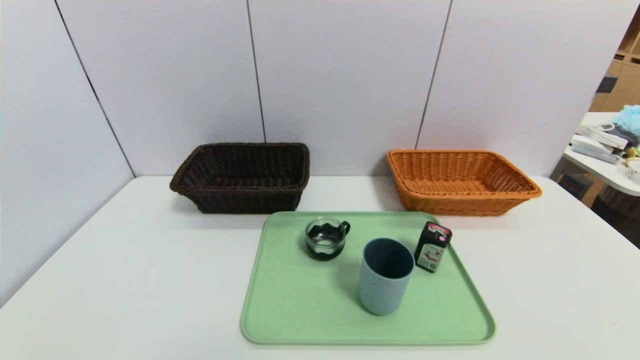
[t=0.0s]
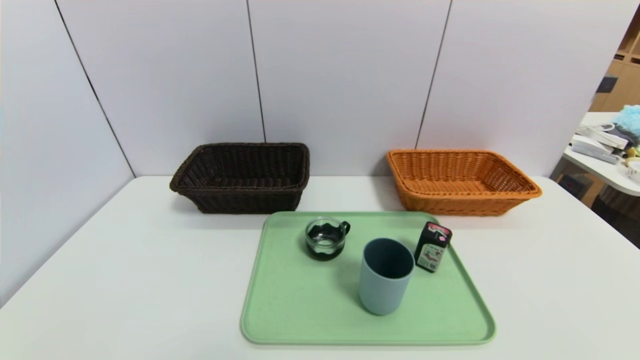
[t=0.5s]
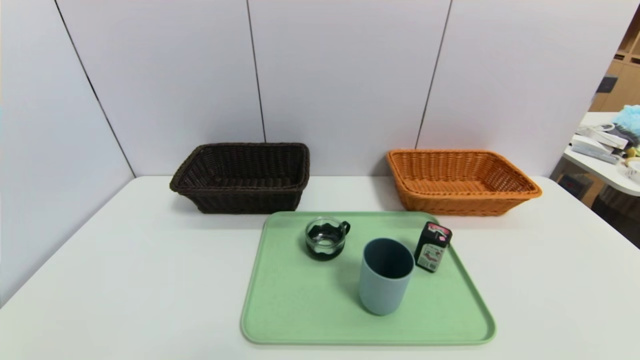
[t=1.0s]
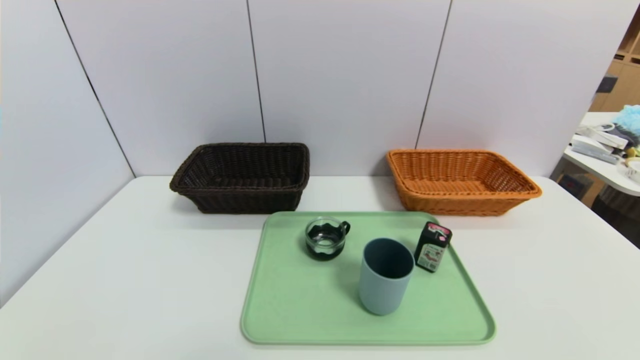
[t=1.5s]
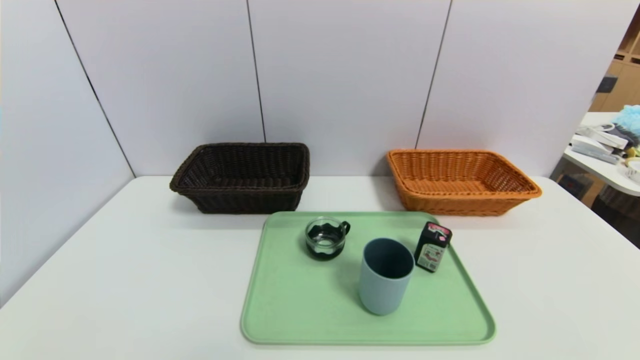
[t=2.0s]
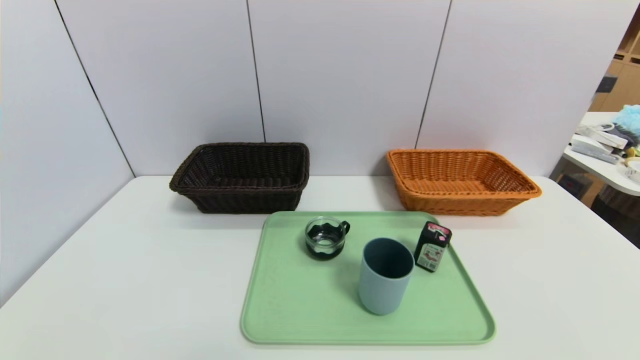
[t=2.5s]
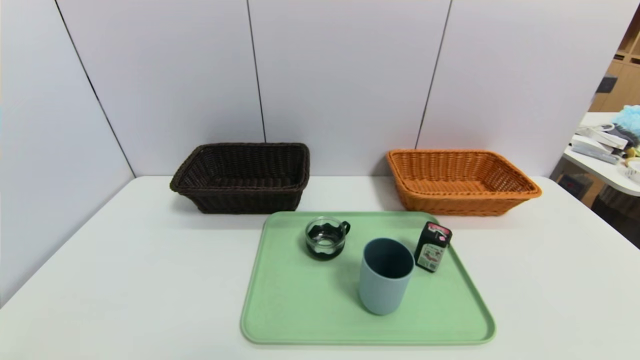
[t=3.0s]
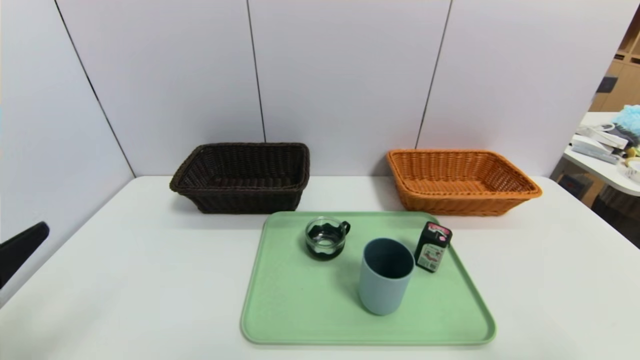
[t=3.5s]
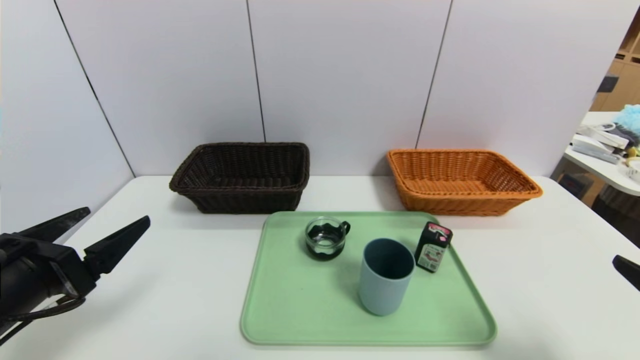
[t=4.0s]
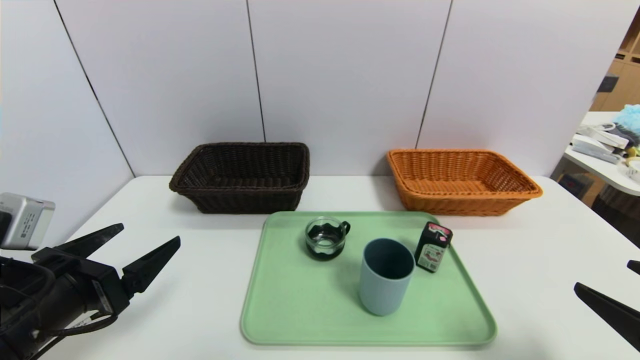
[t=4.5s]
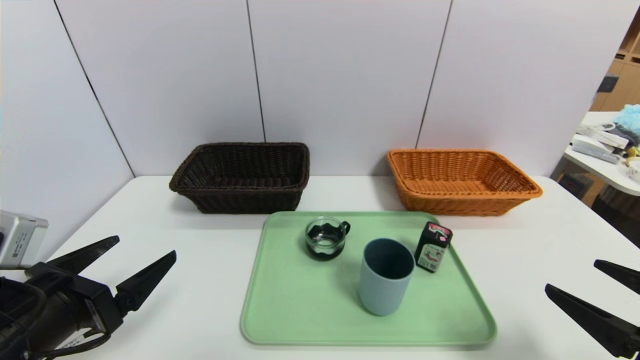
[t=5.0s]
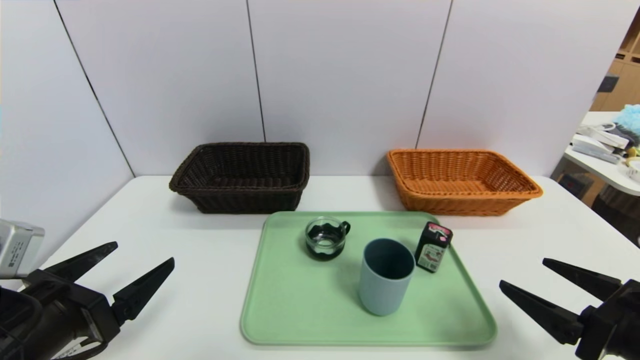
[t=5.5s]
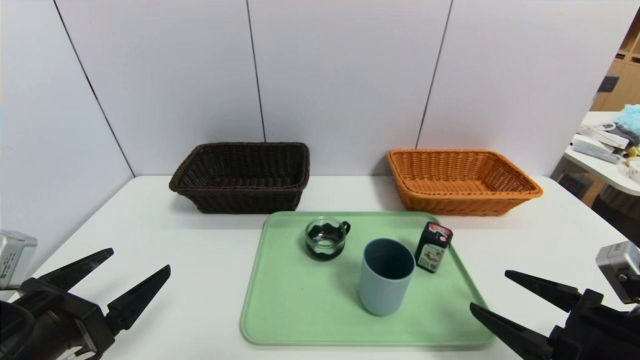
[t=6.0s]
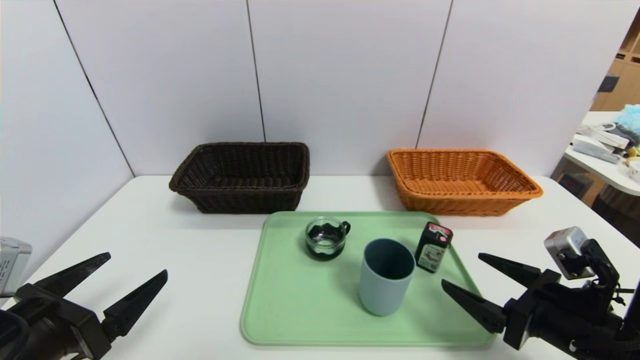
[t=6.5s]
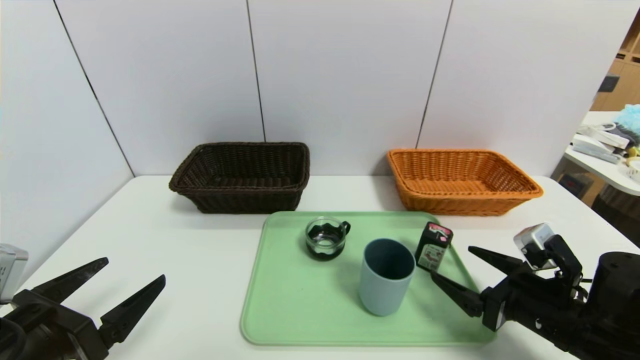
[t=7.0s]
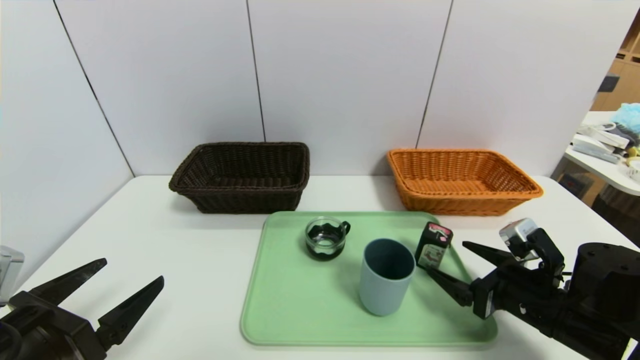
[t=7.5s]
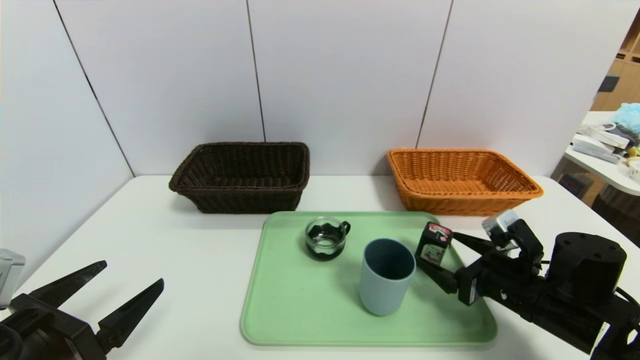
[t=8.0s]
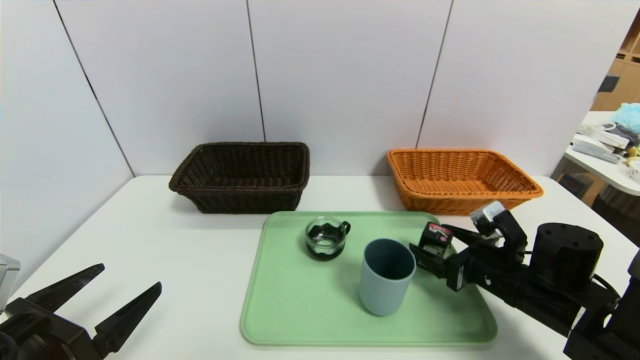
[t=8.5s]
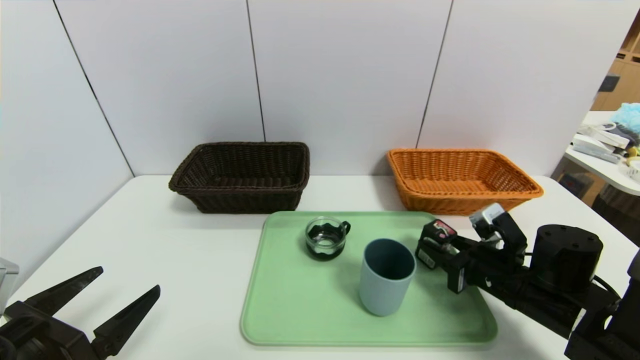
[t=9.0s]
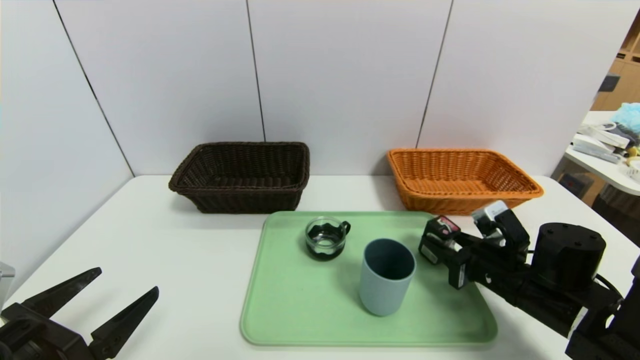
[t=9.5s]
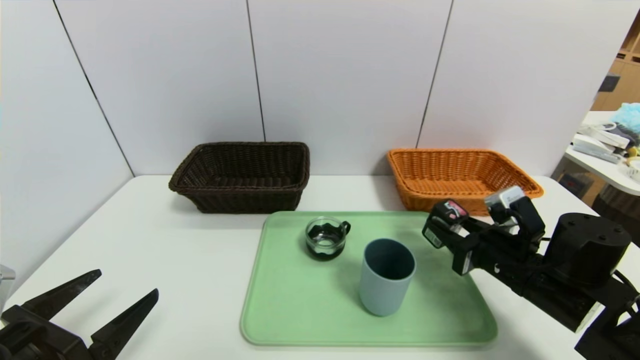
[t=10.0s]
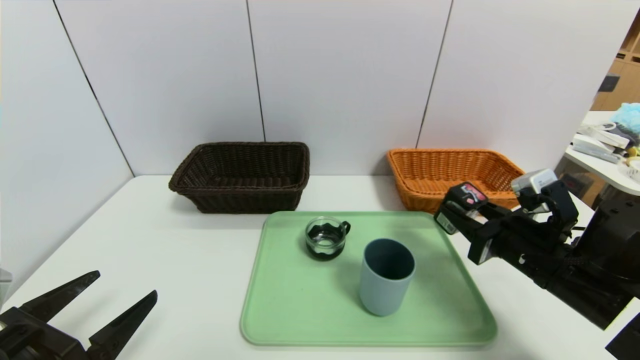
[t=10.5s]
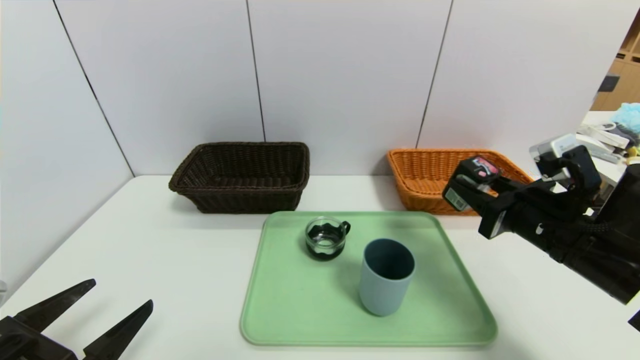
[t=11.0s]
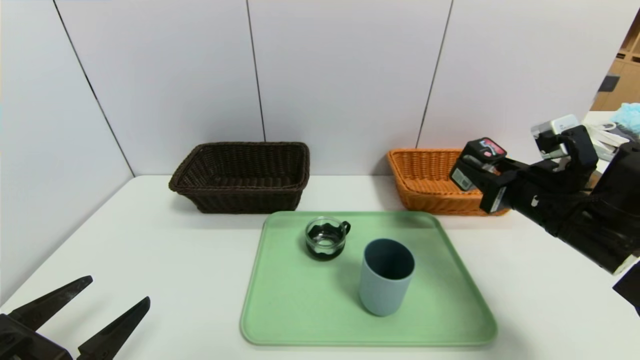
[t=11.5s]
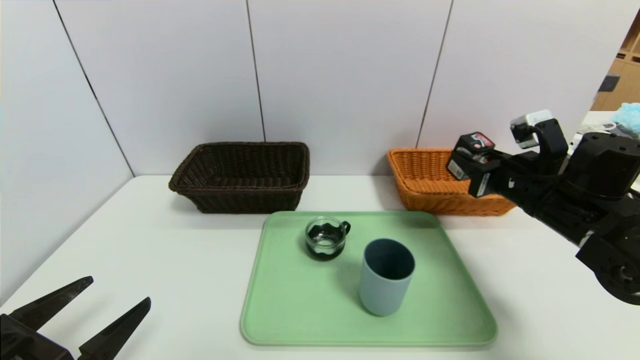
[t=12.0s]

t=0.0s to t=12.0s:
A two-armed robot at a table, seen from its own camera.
Task of the whole recording: place the food in the right basket with the right gripper, and place the non food items in the left basket with the left gripper.
t=0.0s to t=2.0s: Both grippers stay put.
t=2.0s to t=4.0s: The right gripper goes some 15 cm upward and forward; the left gripper goes some 20 cm forward and upward.
t=4.0s to t=6.0s: The right gripper is displaced downward and forward by roughly 10 cm.
t=6.0s to t=8.0s: The right gripper moves forward, approximately 10 cm.
t=8.0s to t=10.0s: The right gripper closes its fingers.
t=10.0s to t=12.0s: The right gripper travels upward and forward by approximately 10 cm.

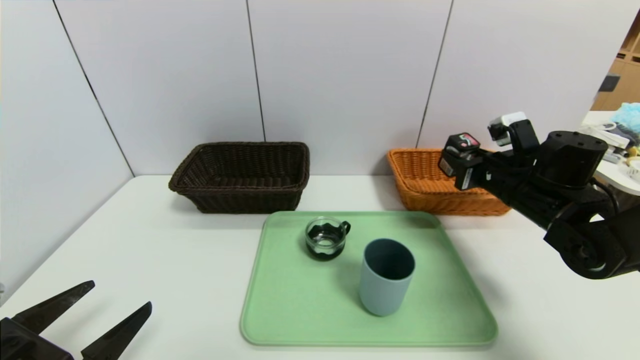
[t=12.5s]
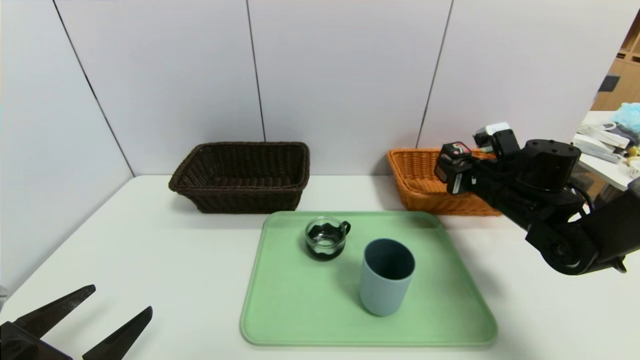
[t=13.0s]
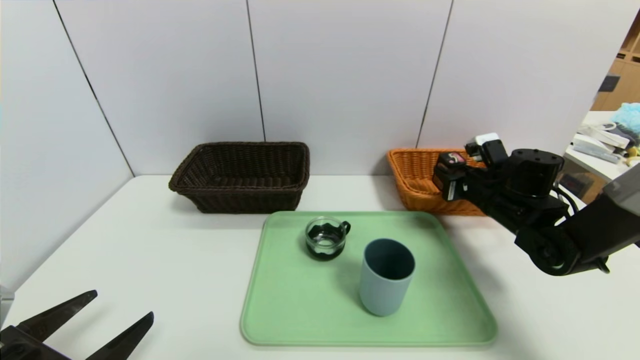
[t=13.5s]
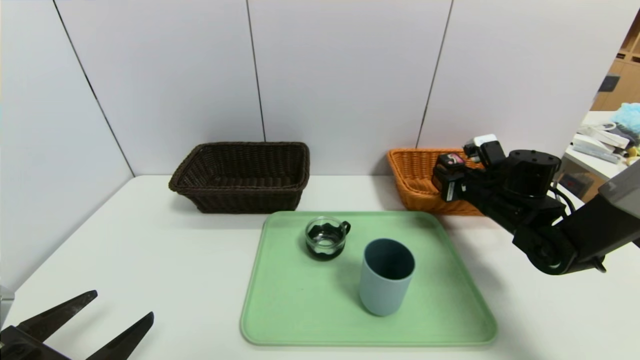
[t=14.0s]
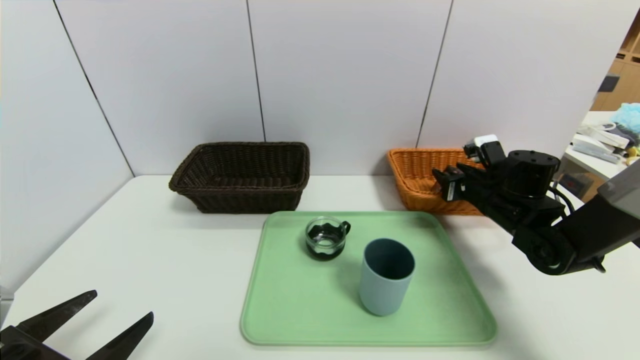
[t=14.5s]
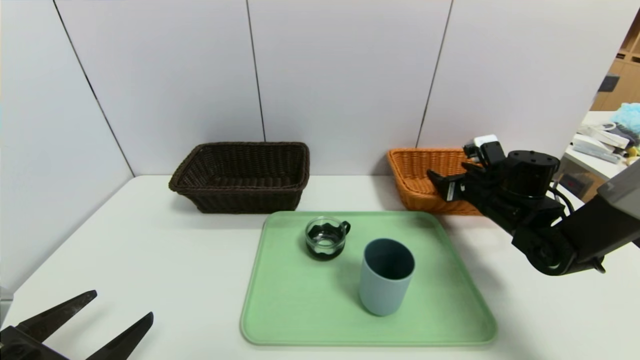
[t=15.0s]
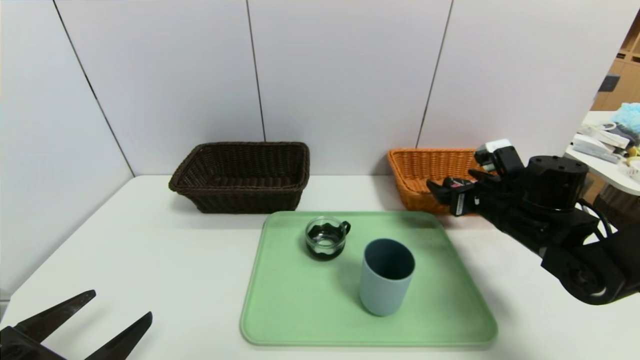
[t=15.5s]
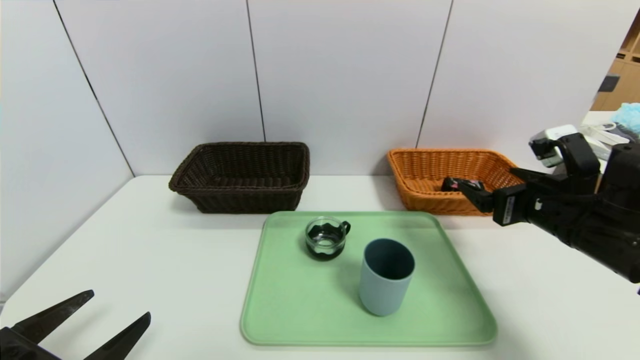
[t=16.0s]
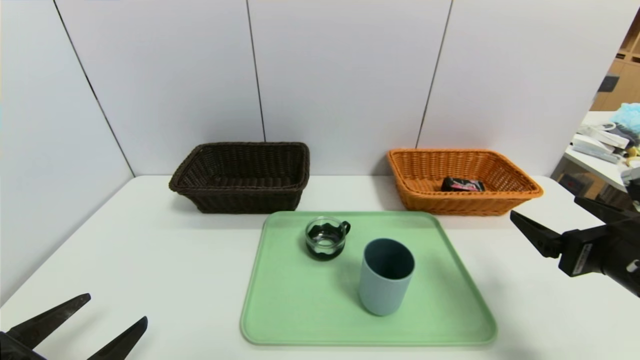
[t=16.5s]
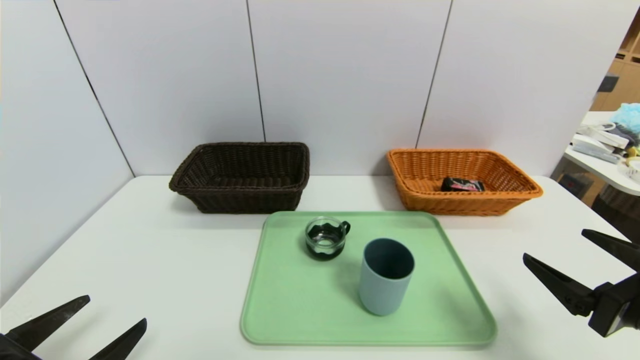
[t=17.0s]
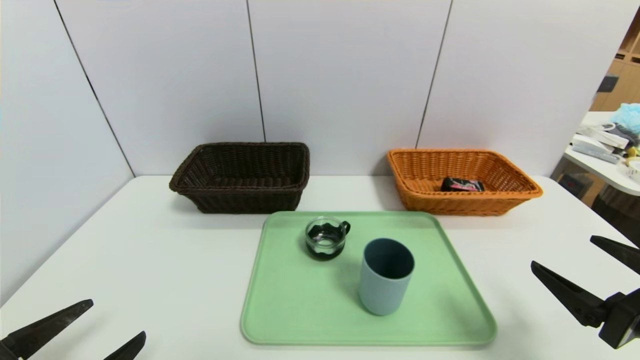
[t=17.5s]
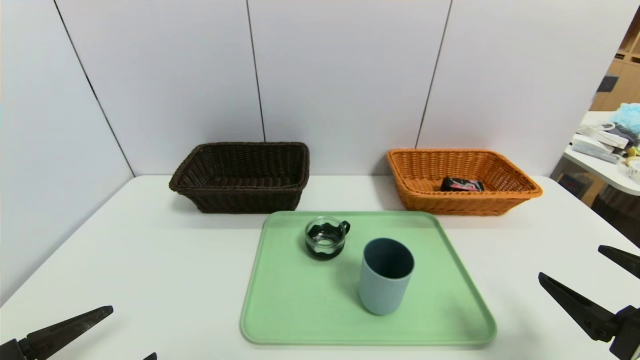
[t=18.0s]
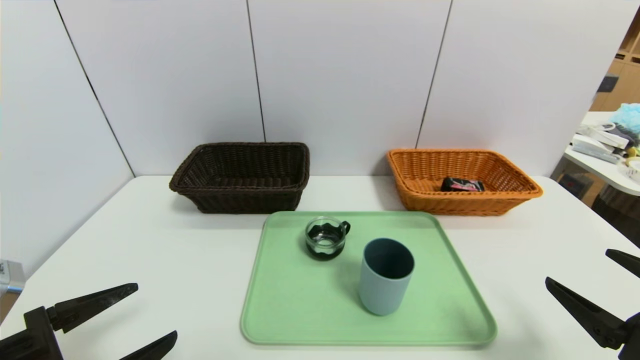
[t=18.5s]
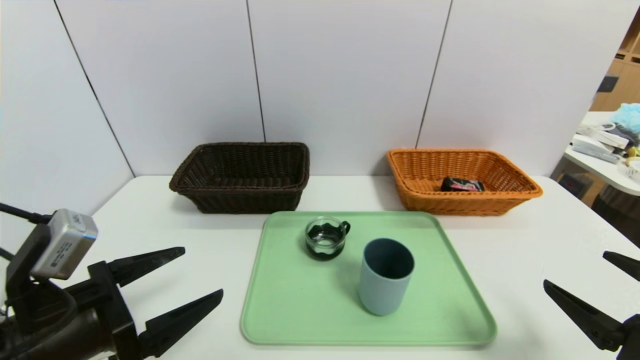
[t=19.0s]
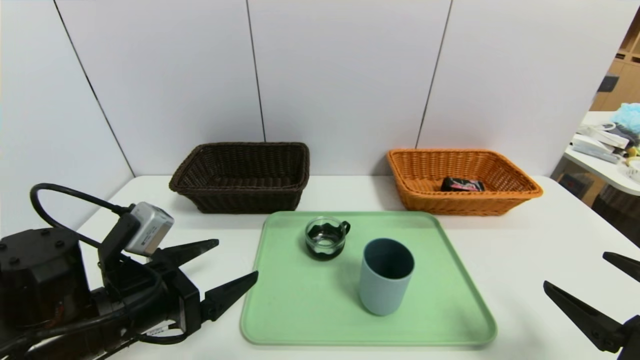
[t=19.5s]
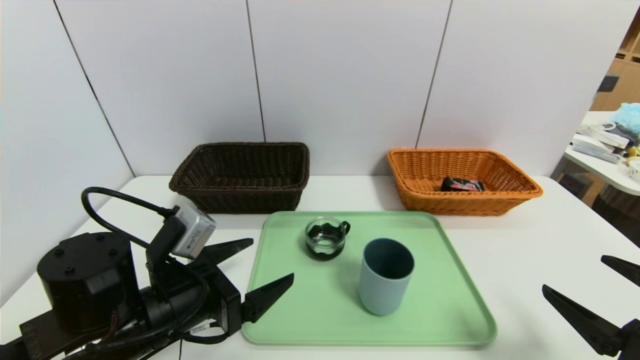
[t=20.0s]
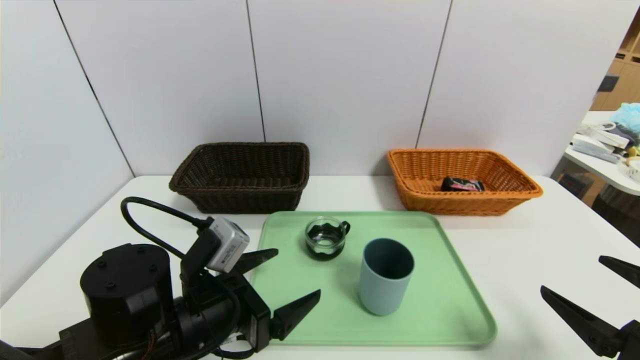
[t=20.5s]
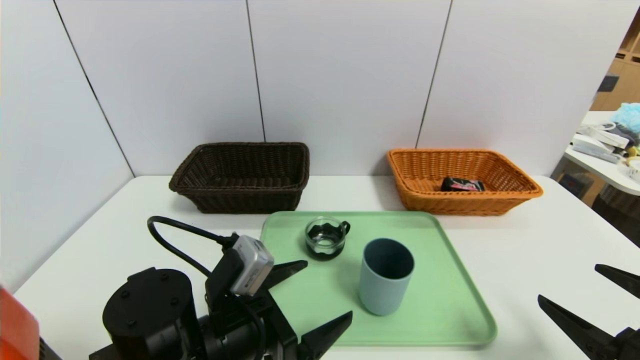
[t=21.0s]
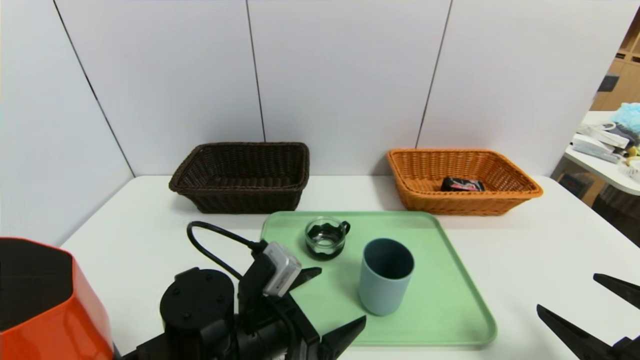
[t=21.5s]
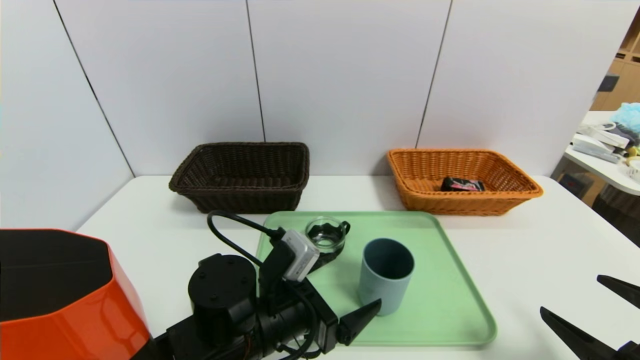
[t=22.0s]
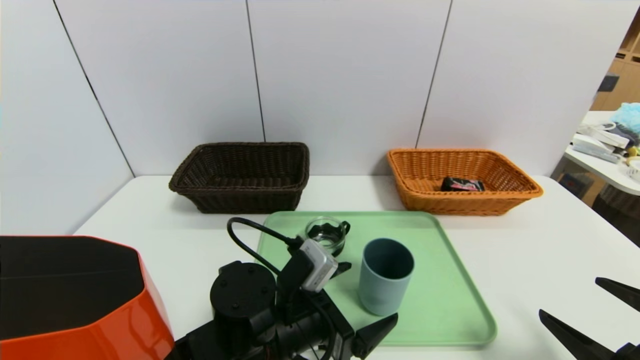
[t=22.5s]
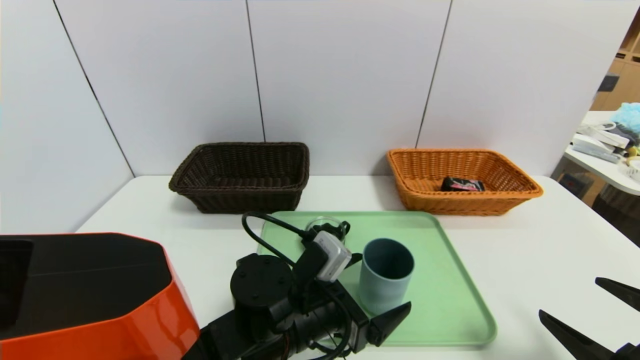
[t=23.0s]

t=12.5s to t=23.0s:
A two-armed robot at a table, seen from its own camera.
Task of the whole recording: place the food in the right basket with the right gripper, and place the non food items in the left basket with the left gripper.
Step, t=12.5s to t=14.5s: Grasp the square chewing gum and put it in the right basket.
t=12.5s to t=14.5s: The right gripper ends up some 5 cm from where it was.
t=14.5s to t=16.5s: The right gripper heads backward, covering some 20 cm, and opens its fingers.
t=16.5s to t=19.0s: The left gripper shifts about 5 cm forward. Meanwhile the right gripper moves backward, about 5 cm.
t=19.0s to t=21.0s: The left gripper goes approximately 15 cm to the right and downward.
t=21.0s to t=23.0s: The left gripper goes about 10 cm to the right.
